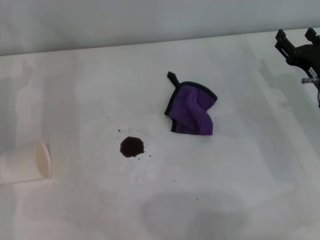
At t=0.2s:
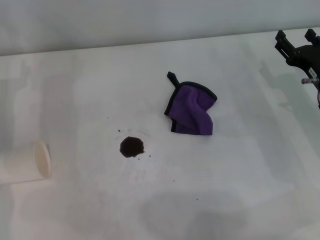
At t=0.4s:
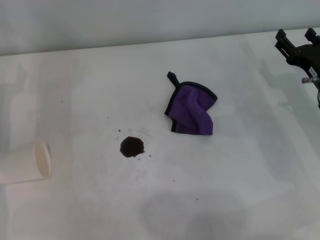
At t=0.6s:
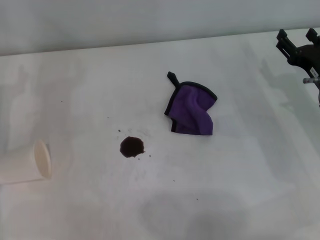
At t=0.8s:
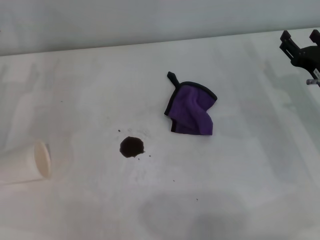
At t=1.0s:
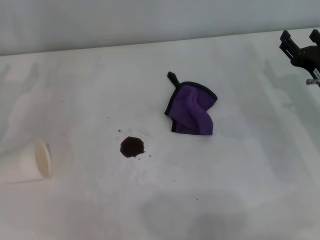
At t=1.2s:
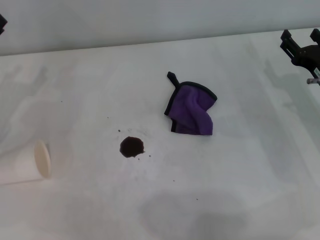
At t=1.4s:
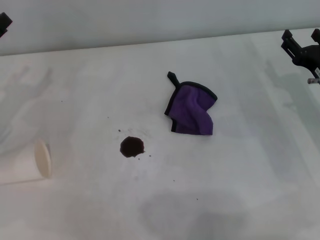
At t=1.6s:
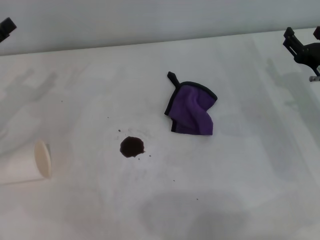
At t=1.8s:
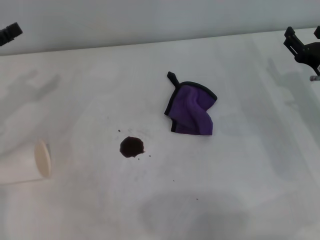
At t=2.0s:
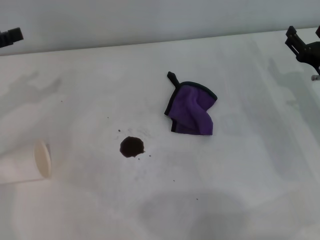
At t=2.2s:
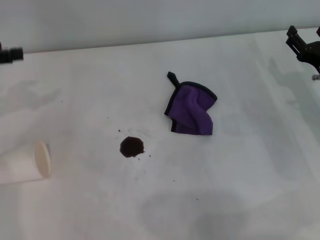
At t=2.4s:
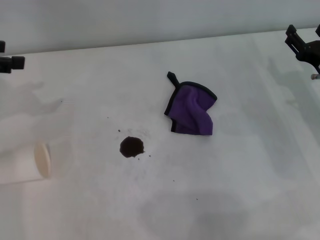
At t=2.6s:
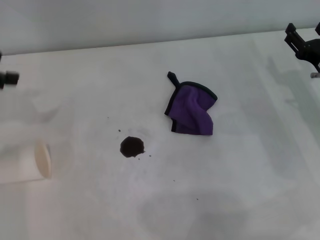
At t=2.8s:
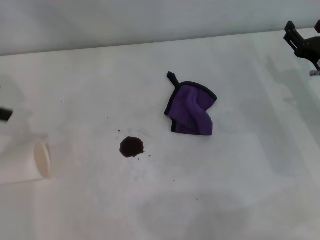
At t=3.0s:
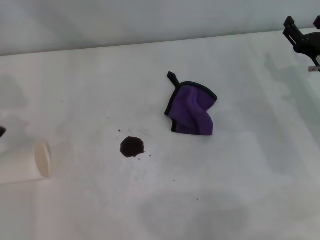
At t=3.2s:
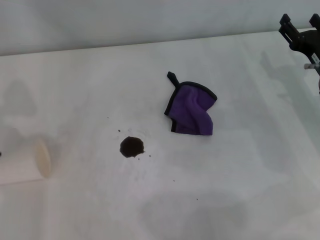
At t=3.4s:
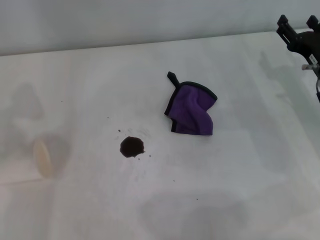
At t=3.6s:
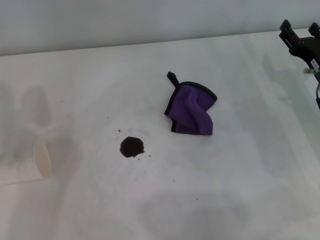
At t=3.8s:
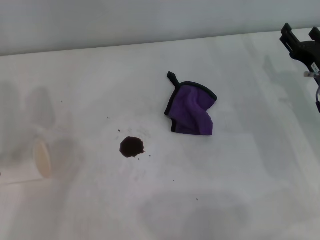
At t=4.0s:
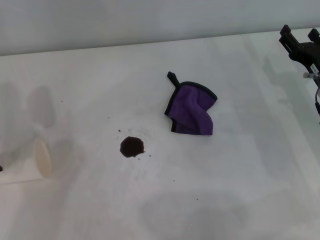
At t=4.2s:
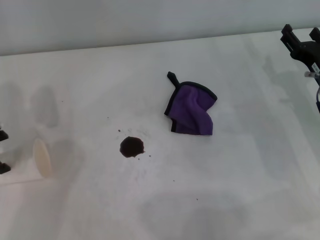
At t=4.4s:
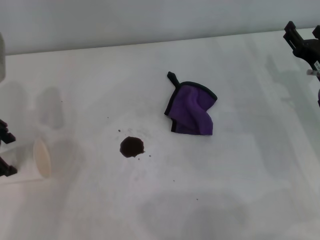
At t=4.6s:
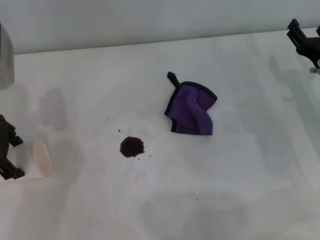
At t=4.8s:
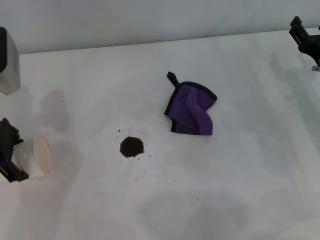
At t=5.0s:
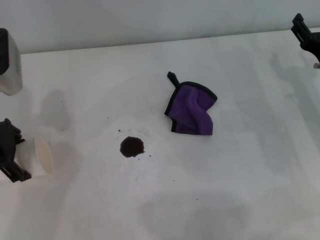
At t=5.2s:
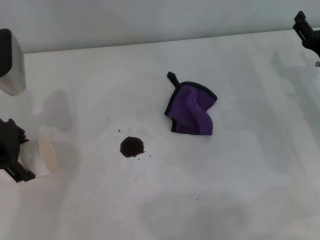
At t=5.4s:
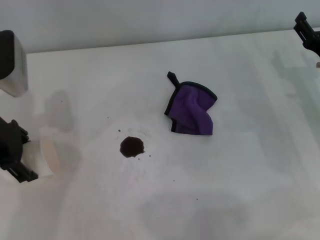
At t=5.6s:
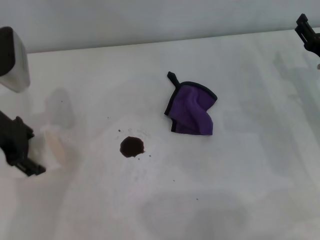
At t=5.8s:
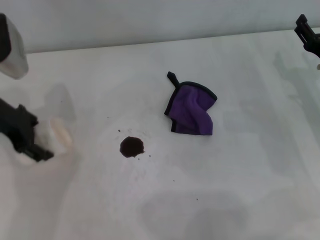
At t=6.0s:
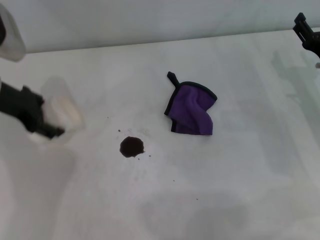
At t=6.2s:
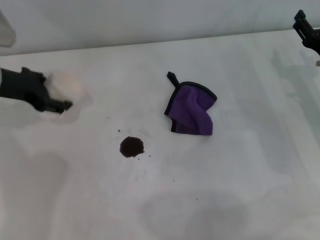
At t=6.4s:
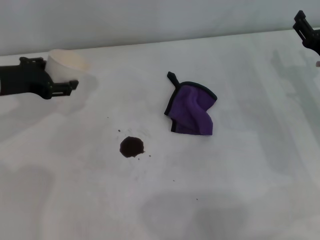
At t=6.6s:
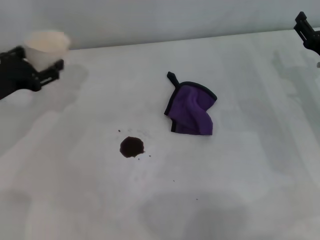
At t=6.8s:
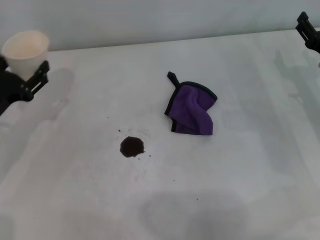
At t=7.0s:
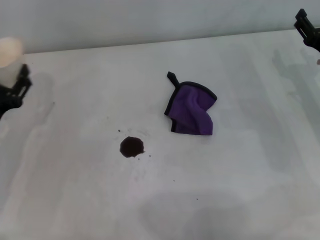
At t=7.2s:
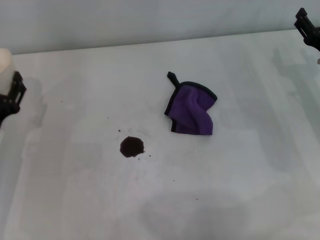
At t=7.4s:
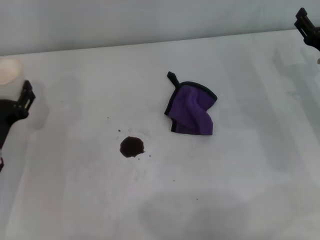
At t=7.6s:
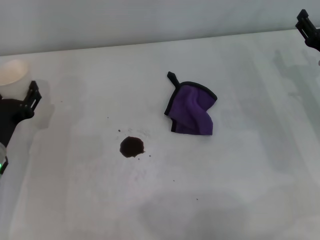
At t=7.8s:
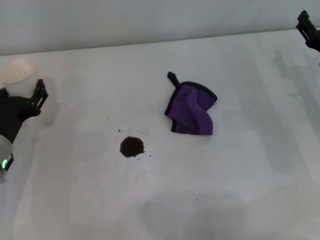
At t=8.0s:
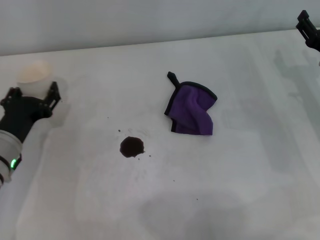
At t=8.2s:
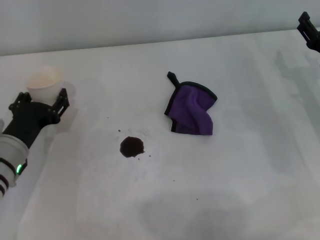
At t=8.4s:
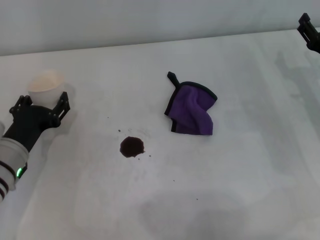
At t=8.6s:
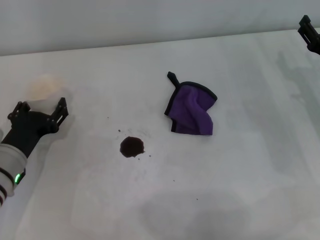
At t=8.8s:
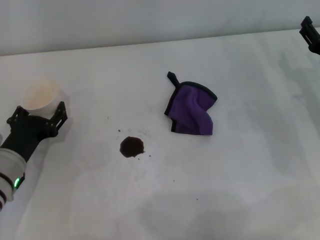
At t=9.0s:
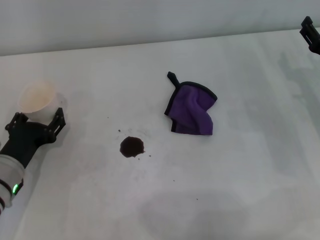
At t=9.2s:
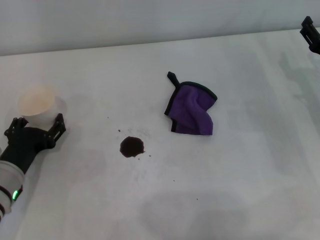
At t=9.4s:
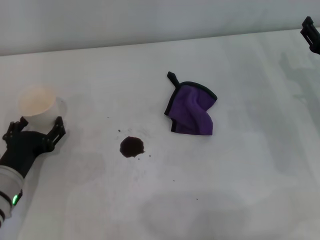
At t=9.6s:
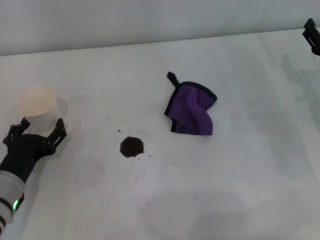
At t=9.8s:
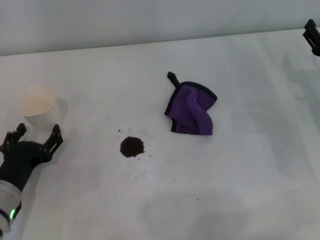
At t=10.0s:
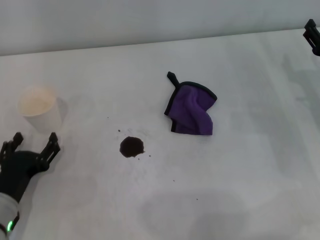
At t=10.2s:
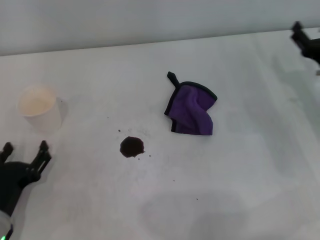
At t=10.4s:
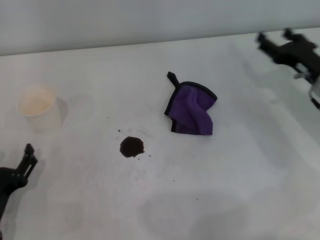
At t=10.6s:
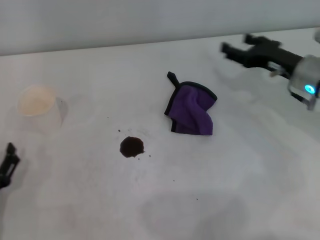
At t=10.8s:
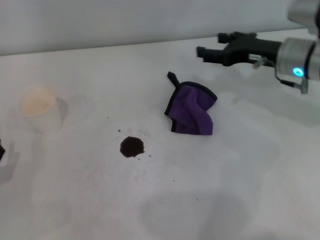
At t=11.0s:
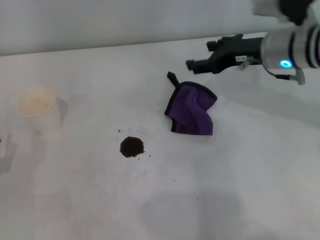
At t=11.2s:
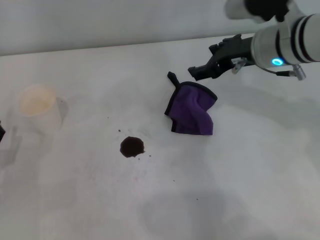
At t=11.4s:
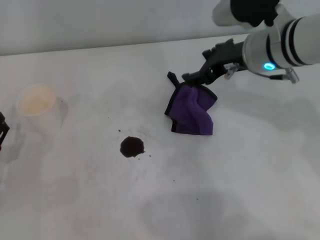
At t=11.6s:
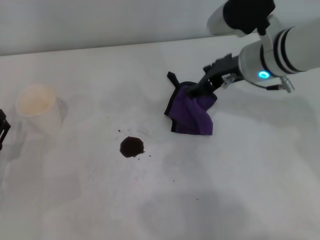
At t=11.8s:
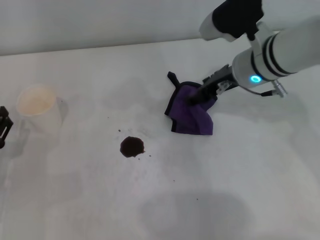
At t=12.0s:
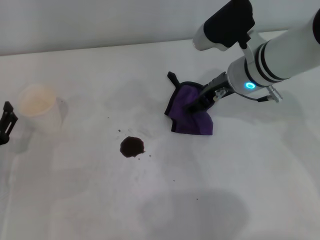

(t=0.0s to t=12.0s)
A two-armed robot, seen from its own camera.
Step, t=0.0s - t=5.4s: Grasp the paper cup with the left gripper.
Step, t=5.6s - t=9.0s: Stand the paper cup upright with the left gripper.
t=3.0s - t=4.4s: The left gripper moves to the right and downward, roughly 10 cm.
t=4.4s - t=6.0s: The left gripper closes.
t=6.0s - t=7.6s: The left gripper heads downward and backward, covering about 15 cm.
t=7.6s - t=9.0s: The grippers stay close to where they were, moving slightly.
t=9.0s - t=10.4s: The left gripper is displaced backward by approximately 10 cm, and opens.
t=10.4s - t=12.0s: The left gripper heads forward, covering about 5 cm. The right gripper is displaced to the left and upward by about 15 cm.

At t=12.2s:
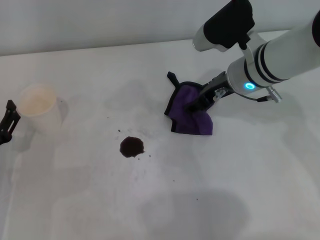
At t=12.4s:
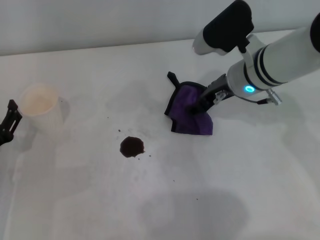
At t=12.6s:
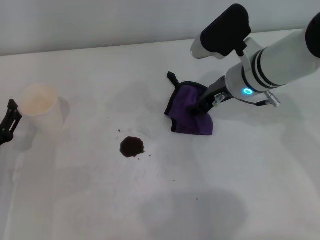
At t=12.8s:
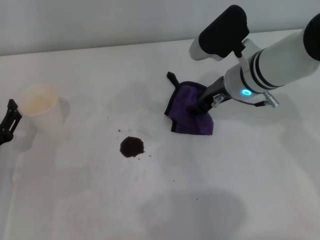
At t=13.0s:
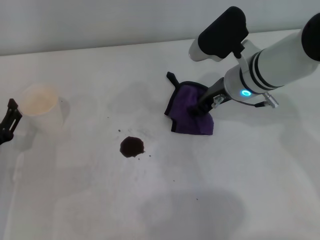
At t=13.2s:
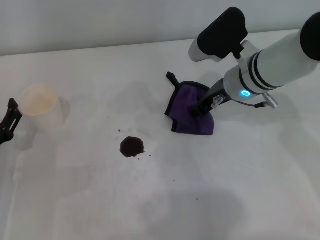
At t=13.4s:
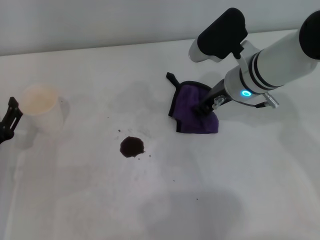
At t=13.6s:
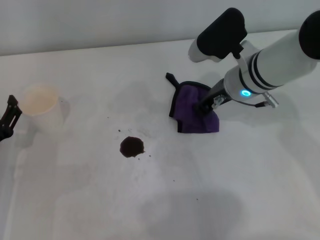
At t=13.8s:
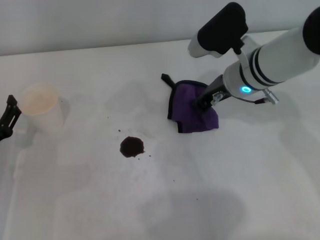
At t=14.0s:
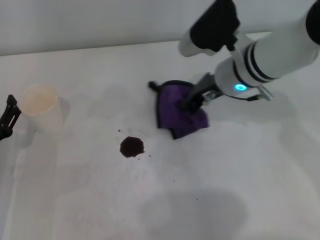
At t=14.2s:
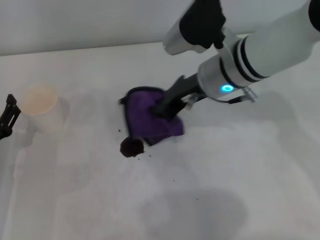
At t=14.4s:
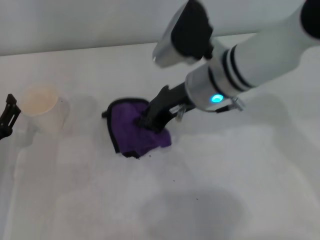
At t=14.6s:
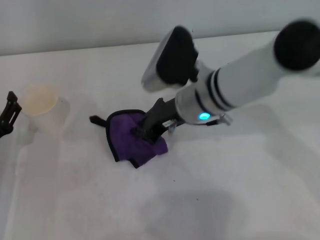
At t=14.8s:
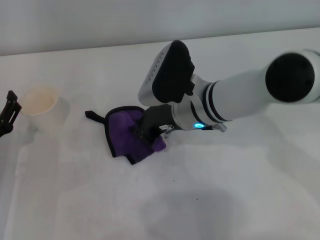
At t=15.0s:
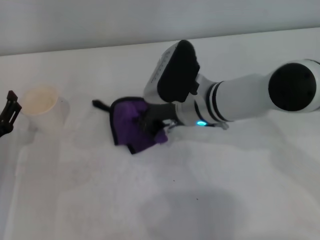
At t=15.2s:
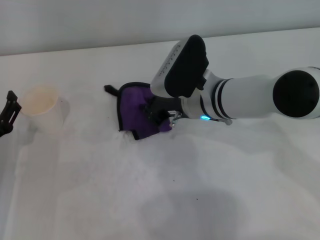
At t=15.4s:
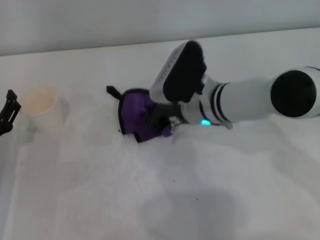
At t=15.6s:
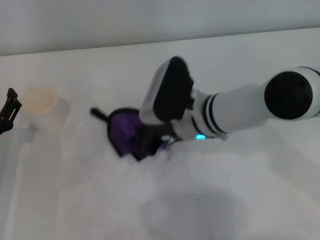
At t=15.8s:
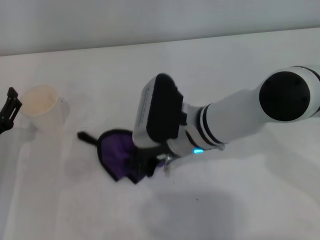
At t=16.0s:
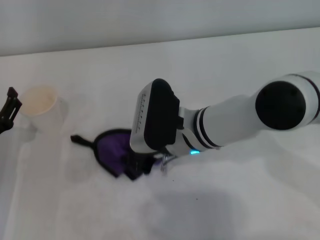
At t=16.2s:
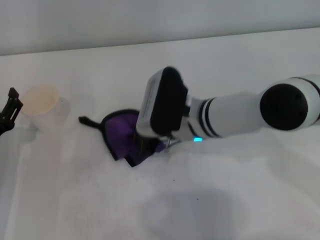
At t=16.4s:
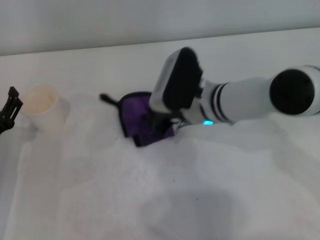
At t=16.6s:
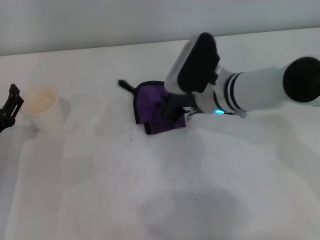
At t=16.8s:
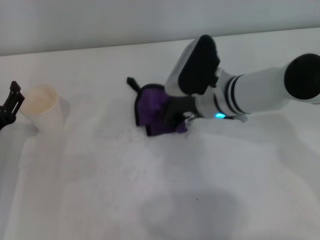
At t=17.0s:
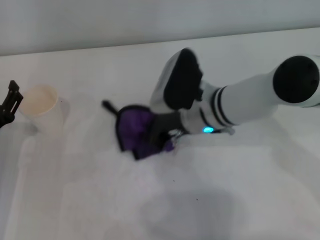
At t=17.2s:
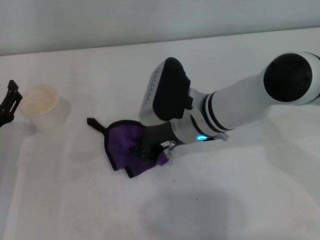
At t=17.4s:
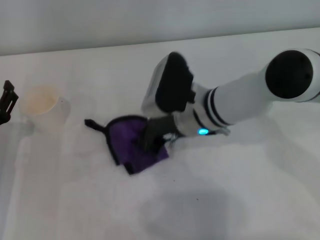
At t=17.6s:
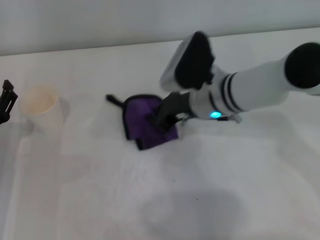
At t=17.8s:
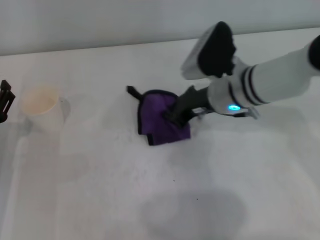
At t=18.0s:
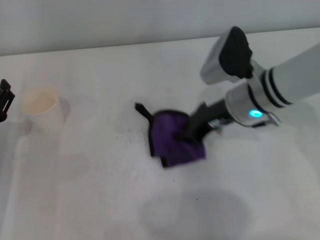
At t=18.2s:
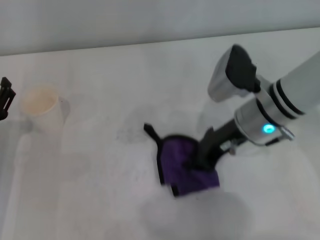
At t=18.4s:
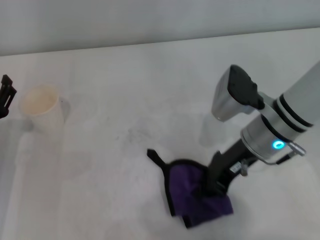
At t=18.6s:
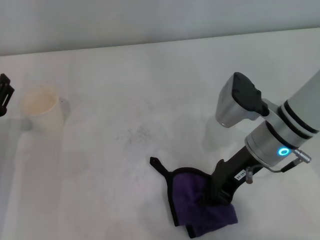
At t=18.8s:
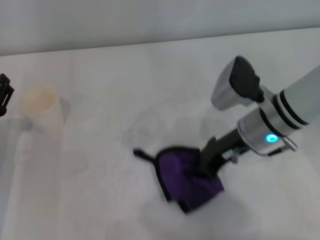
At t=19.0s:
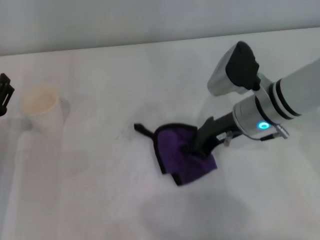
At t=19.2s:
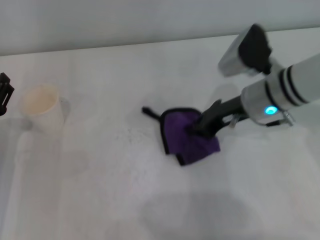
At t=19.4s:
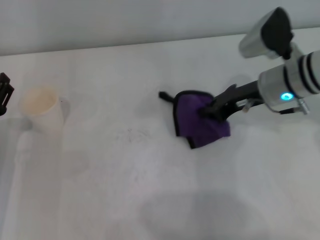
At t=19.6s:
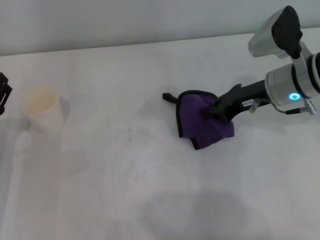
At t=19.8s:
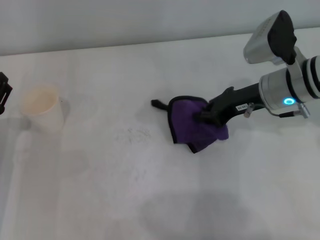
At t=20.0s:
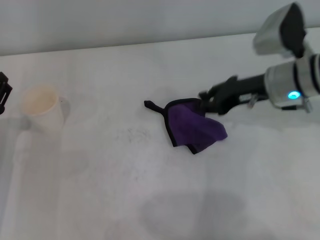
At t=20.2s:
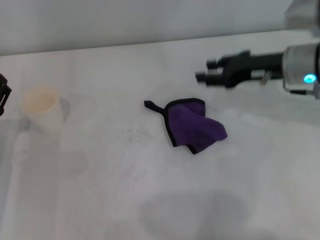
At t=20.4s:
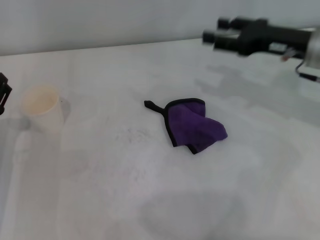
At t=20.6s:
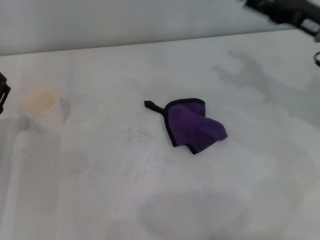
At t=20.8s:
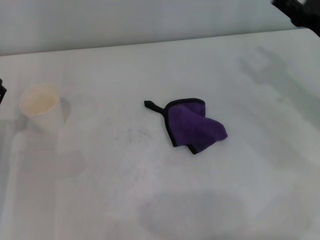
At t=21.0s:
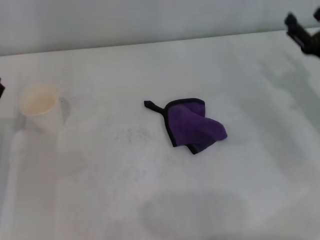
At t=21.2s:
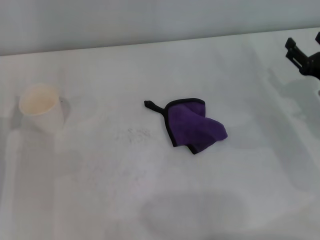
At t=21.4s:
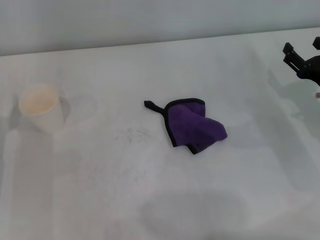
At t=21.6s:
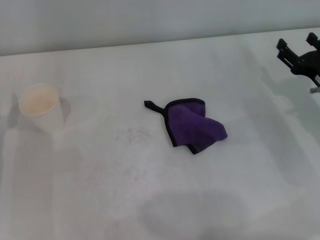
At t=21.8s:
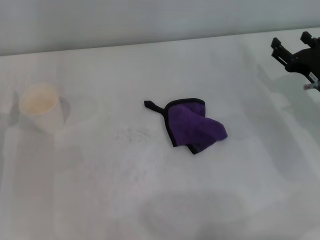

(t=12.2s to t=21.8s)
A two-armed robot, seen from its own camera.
Step, t=13.6s - t=18.8s: Wipe the stains off the table with the right gripper.
Step, t=19.2s - t=19.6s: Place the rag on the table with the right gripper.
t=12.2s - t=13.8s: The right gripper closes its fingers.
t=13.8s - t=15.4s: The right gripper goes approximately 5 cm to the left.
t=17.0s - t=18.6s: The right gripper goes approximately 10 cm to the right.
t=18.6s - t=20.2s: The right gripper is displaced to the right and forward by some 10 cm.
t=20.2s - t=21.8s: The right gripper travels downward and to the right by roughly 10 cm, and opens.
